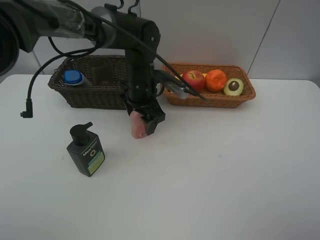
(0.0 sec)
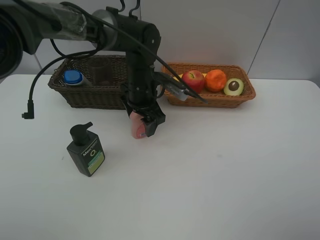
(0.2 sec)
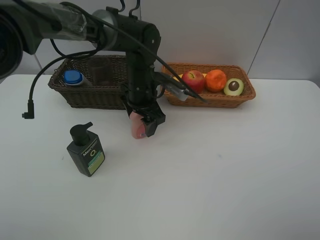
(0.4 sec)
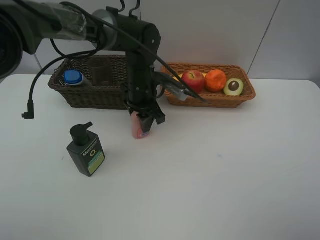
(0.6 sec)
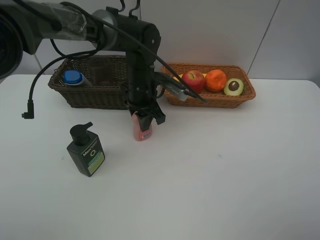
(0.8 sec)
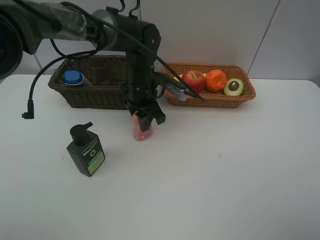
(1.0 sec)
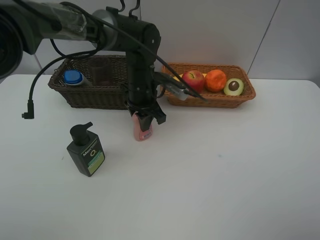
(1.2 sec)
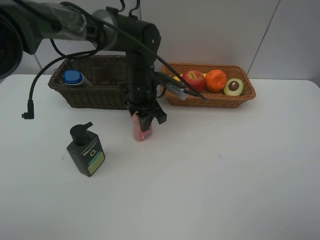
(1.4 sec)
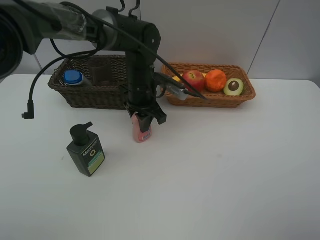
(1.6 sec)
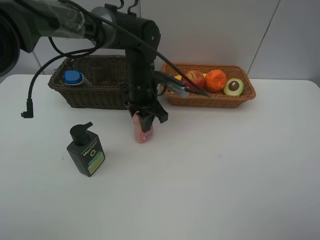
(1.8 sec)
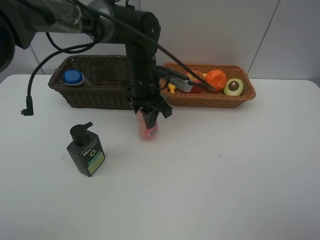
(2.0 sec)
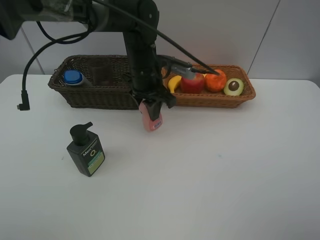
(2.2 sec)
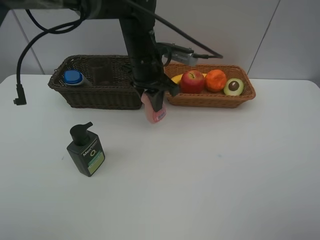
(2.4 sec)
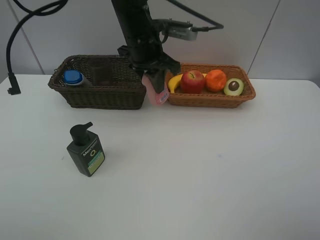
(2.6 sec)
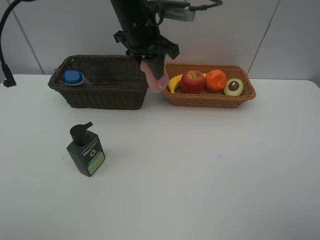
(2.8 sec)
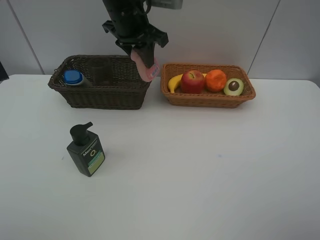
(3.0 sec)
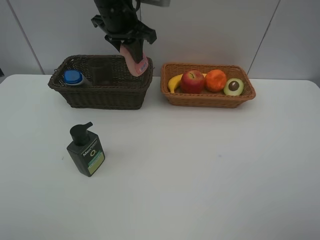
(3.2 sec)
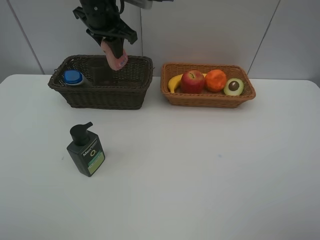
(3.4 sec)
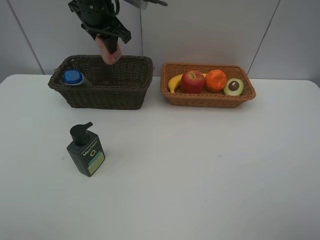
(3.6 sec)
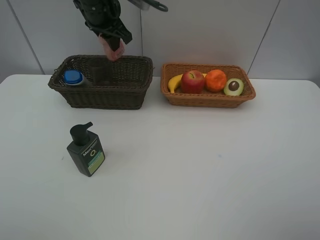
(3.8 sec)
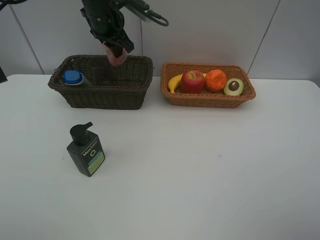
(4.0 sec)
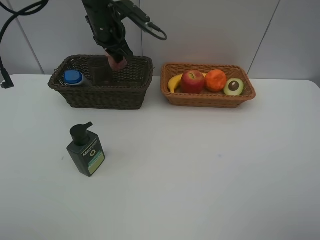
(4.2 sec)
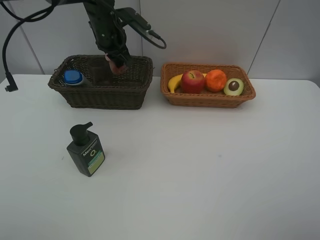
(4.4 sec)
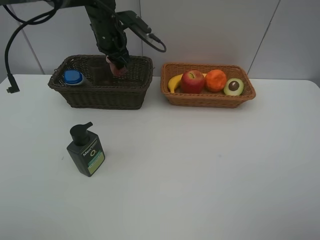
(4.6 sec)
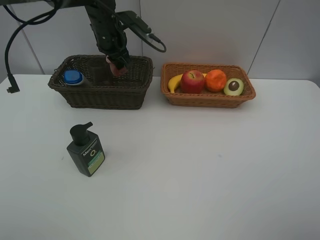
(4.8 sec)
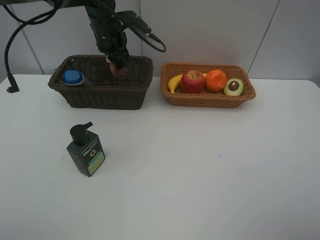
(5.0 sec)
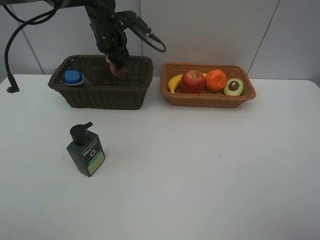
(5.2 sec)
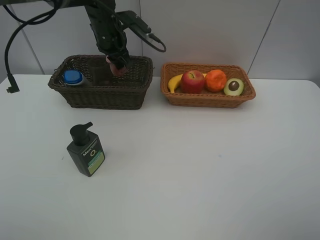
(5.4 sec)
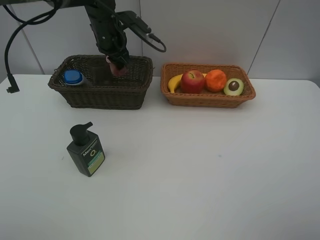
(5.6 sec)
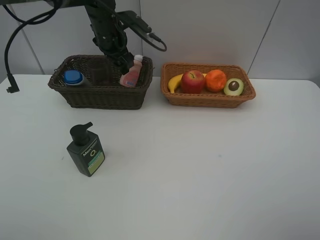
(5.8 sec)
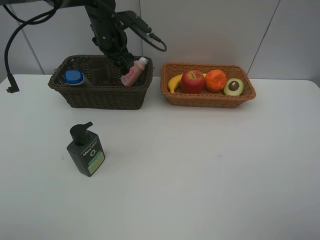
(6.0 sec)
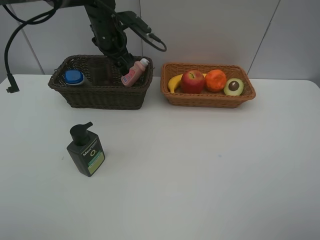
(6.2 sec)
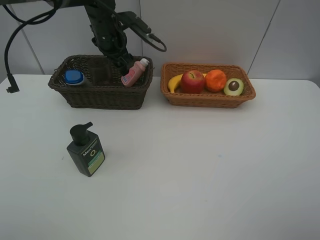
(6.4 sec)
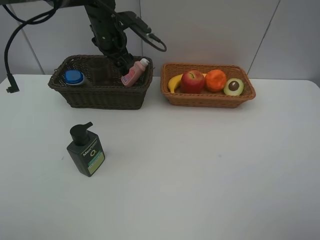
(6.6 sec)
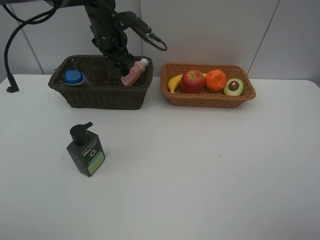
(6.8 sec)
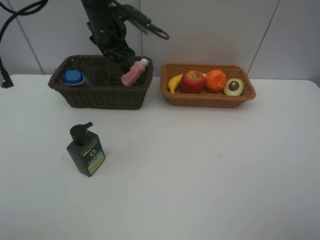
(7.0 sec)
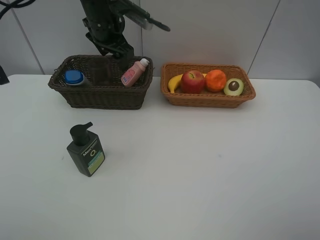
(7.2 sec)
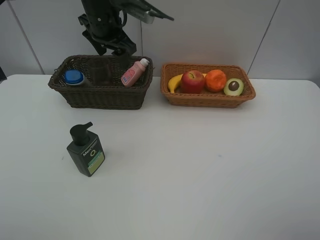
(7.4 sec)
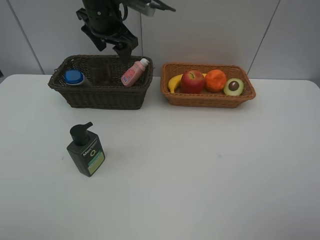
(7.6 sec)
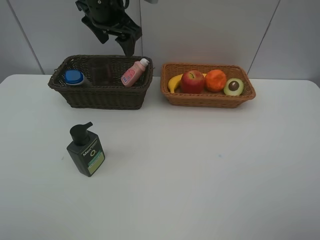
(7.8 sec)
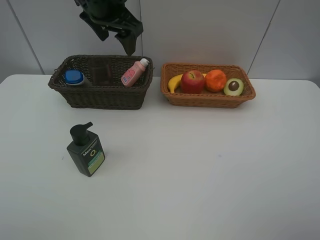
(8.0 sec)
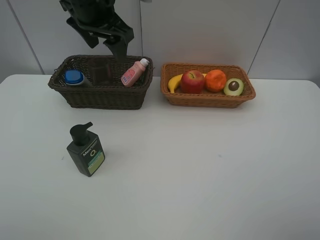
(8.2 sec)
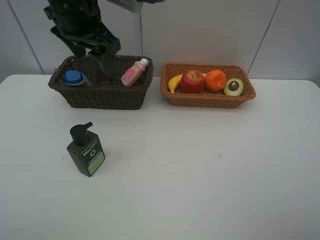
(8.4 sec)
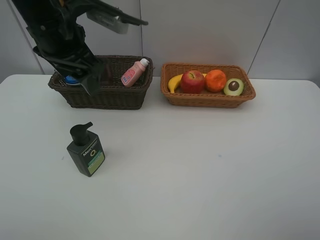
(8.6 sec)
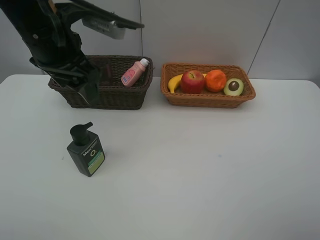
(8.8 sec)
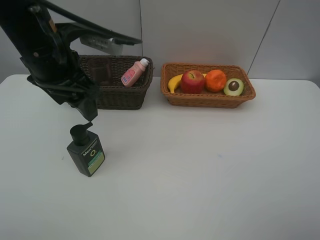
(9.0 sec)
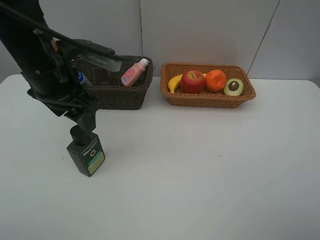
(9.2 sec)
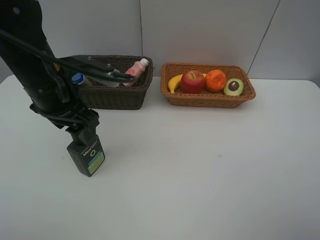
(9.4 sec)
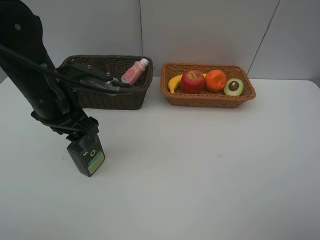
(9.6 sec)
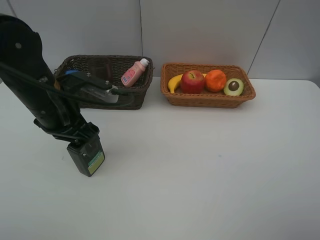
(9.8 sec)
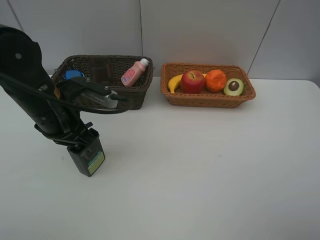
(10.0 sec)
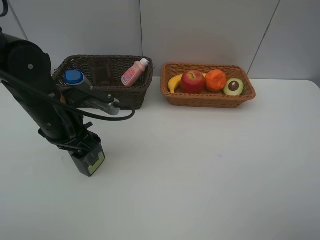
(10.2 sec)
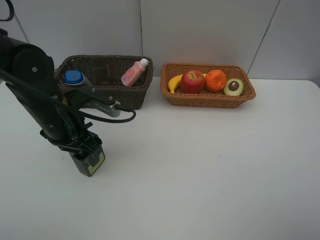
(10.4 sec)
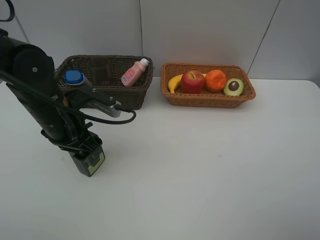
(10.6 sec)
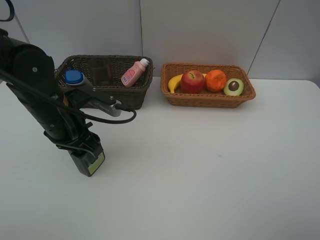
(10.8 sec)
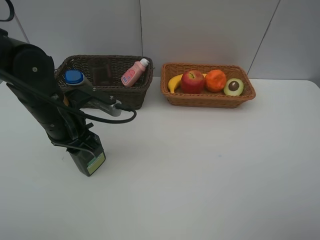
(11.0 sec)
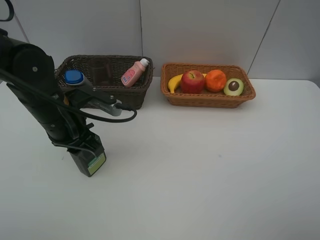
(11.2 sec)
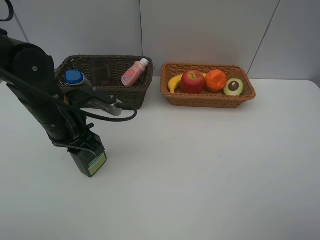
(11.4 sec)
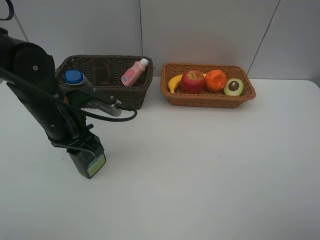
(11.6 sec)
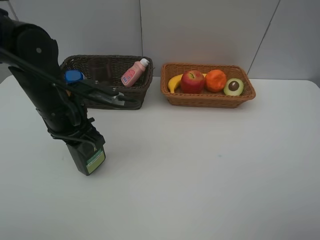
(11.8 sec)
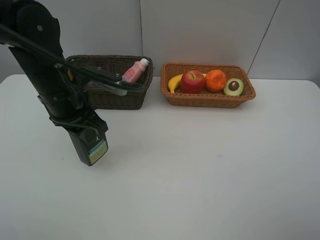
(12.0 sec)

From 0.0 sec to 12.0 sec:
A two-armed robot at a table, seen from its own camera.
Task of the whole recording: Place multiple objects separately in different baskets.
Step, from 0.0 sec to 2.0 sec: Pick up the laundry detergent with left gripper.
Step, from 2.2 sec to 6.2 sec: Place the laundry detergent in the dark basket with left gripper.
Step, from 6.4 sec to 12.0 sec: Pick up the hard facial cleanser with left gripper.
From 0.0 sec to 1.6 sec: The left gripper closes its fingers.
From 1.6 sec to 3.0 sec: The left gripper is displaced upward by roughly 15 cm.
From 3.0 sec to 4.4 sec: The left gripper is displaced forward and downward by approximately 10 cm.
From 4.4 sec to 6.0 sec: The left gripper opens.
From 6.0 sec to 7.6 sec: The left gripper goes approximately 5 cm upward.
From 7.6 sec to 9.0 sec: The left gripper heads backward, covering about 15 cm.
From 9.0 sec to 10.4 sec: The left gripper goes approximately 10 cm downward.
From 10.4 sec to 12.0 sec: The left gripper shifts by about 5 cm, and closes up.

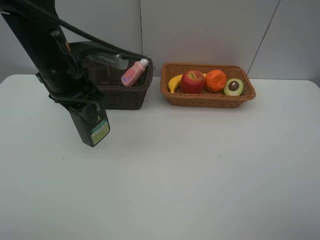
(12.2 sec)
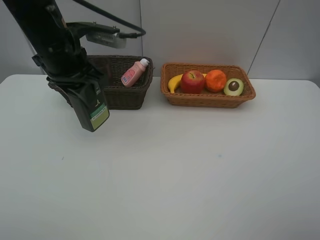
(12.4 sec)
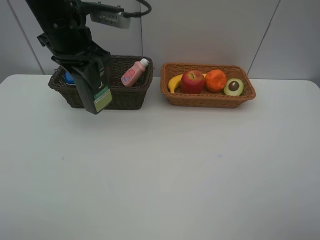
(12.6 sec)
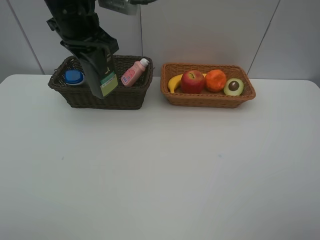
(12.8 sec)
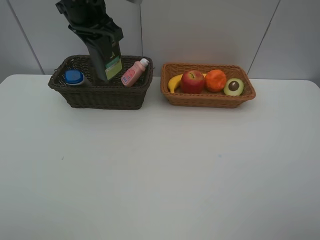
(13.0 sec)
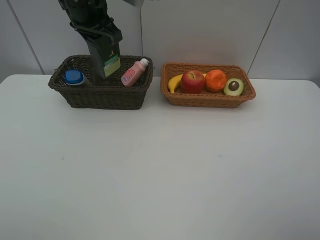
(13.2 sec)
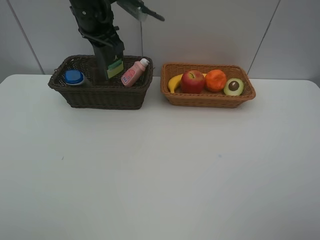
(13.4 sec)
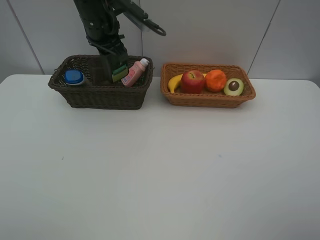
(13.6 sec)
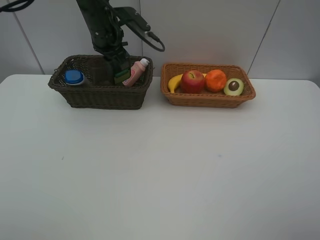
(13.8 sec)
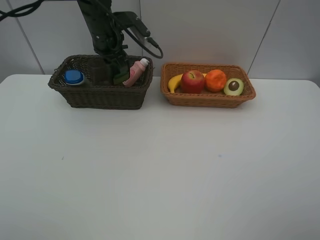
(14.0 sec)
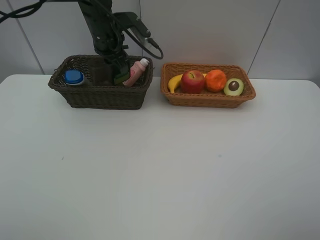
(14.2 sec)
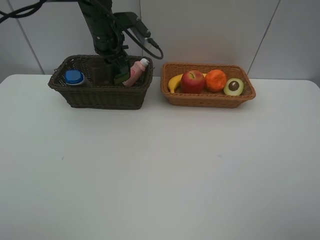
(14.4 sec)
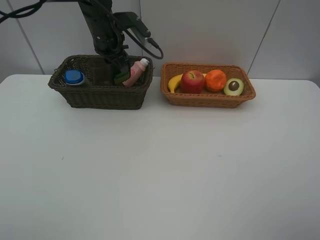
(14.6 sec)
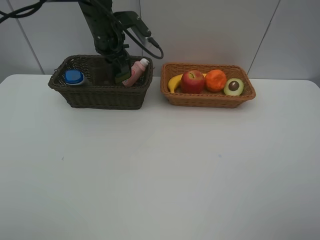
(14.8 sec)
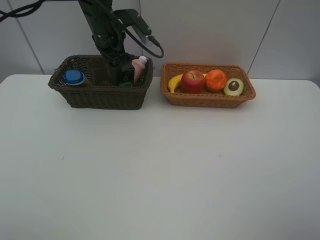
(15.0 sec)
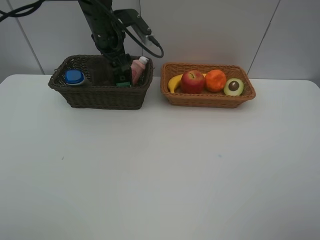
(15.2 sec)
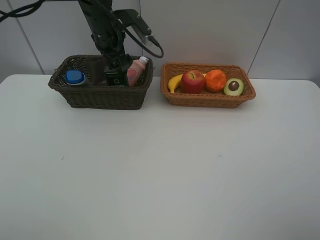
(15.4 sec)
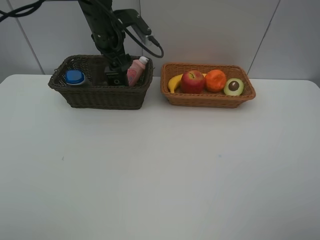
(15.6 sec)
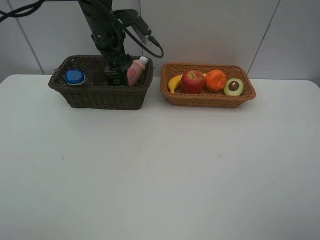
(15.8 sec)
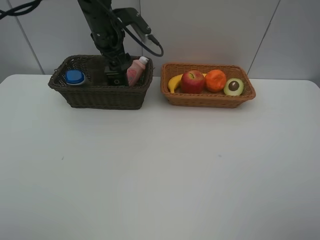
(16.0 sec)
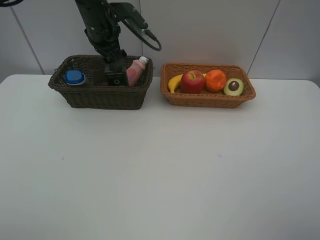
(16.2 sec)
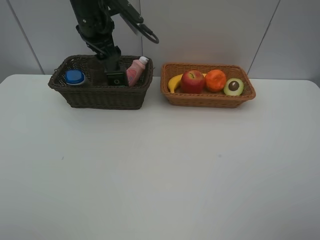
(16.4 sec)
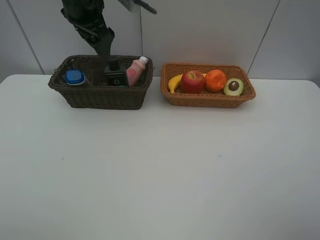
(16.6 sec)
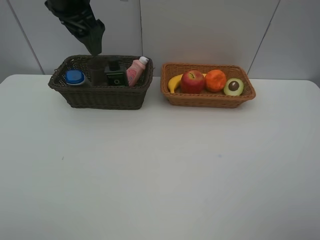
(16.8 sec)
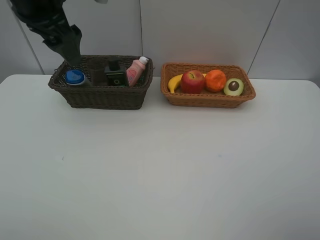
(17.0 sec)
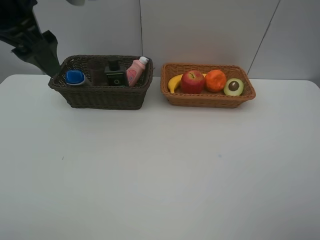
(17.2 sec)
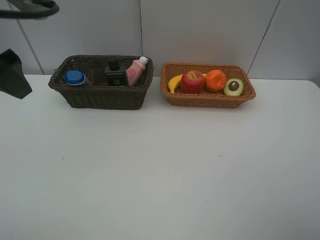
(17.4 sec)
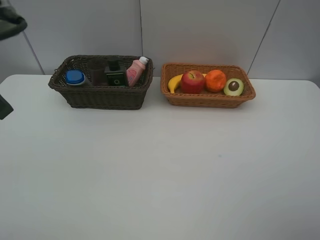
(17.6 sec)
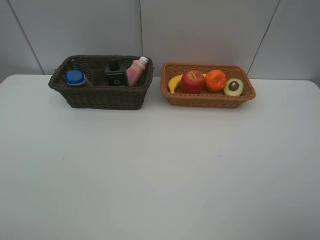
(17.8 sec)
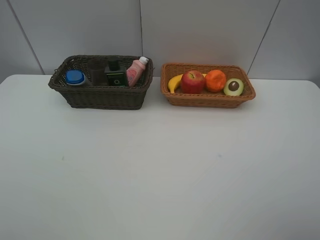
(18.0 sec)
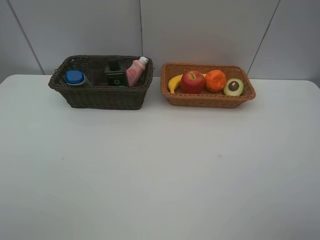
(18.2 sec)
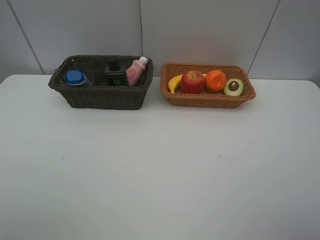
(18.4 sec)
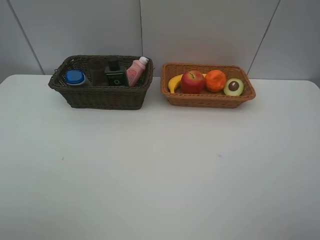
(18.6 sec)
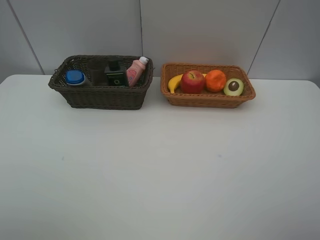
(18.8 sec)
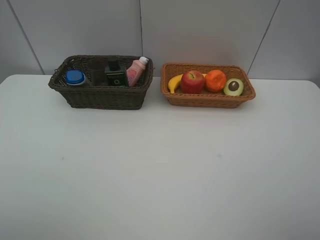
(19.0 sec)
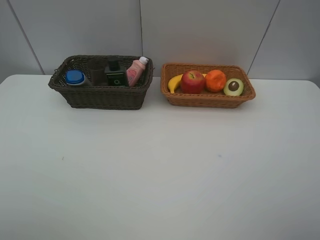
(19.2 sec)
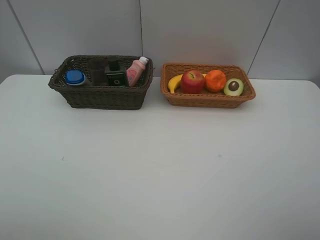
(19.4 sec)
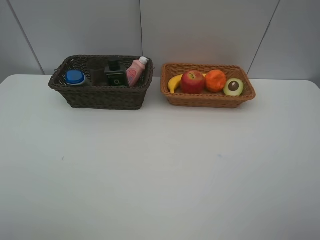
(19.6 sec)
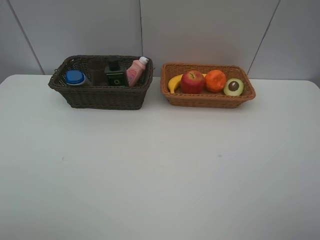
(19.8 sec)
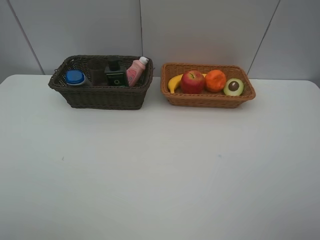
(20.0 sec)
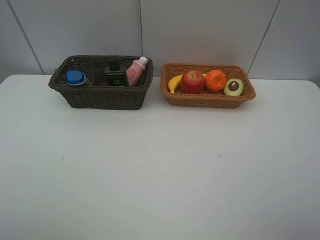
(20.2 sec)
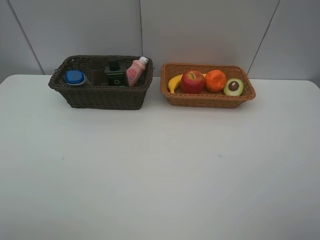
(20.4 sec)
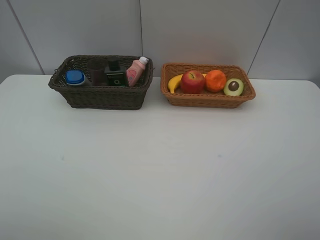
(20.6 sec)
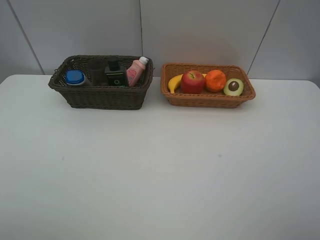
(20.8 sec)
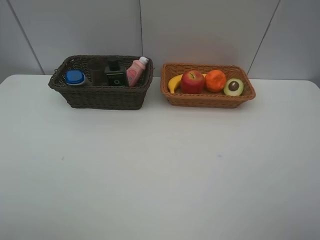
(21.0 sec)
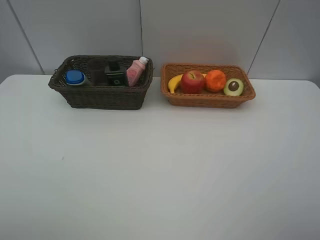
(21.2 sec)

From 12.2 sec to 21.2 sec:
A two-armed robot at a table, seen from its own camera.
Task of the whole recording: Place multiple objects separately in different baskets.
Step, from 12.2 sec to 16.4 sec: Place the hard facial cleanser in the dark basket with left gripper.
From 12.2 sec to 13.8 sec: The left gripper travels forward by about 15 cm.
From 13.8 sec to 15.2 sec: The left gripper opens its fingers.
From 15.2 sec to 16.6 sec: The left gripper goes approximately 10 cm upward and backward.
From 16.6 sec to 18.2 sec: The left gripper moves backward and to the left, some 35 cm.
From 19.8 sec to 21.2 sec: Neither gripper changes place.
